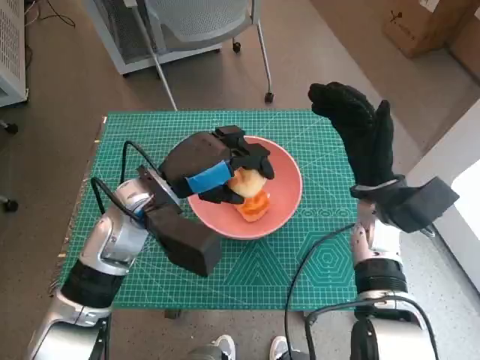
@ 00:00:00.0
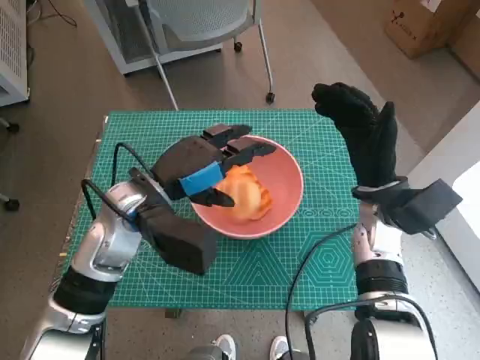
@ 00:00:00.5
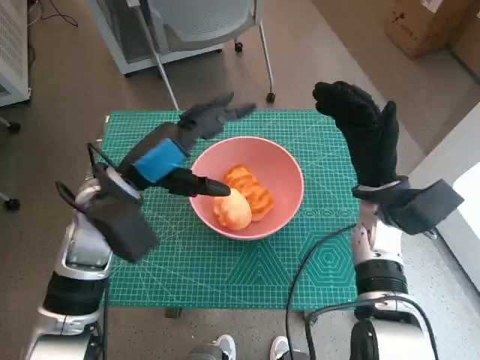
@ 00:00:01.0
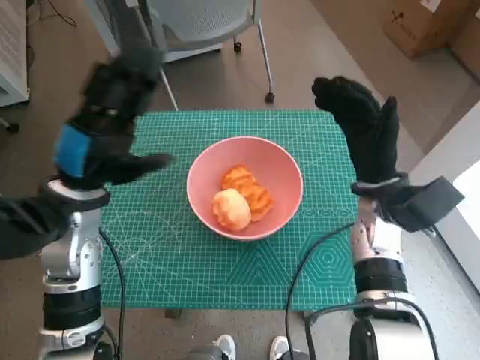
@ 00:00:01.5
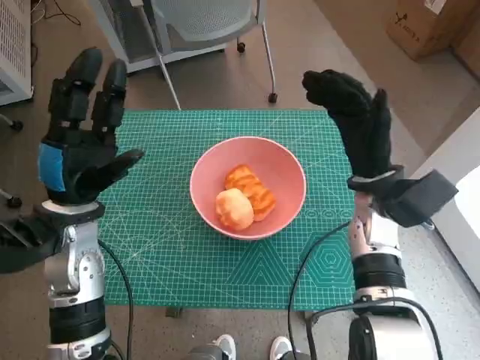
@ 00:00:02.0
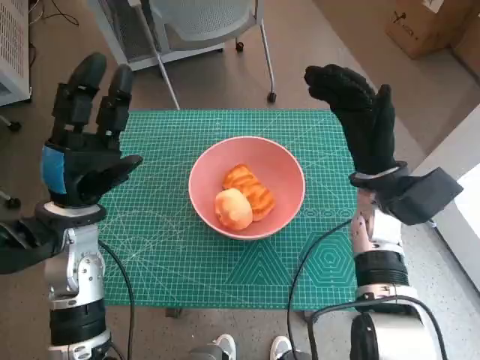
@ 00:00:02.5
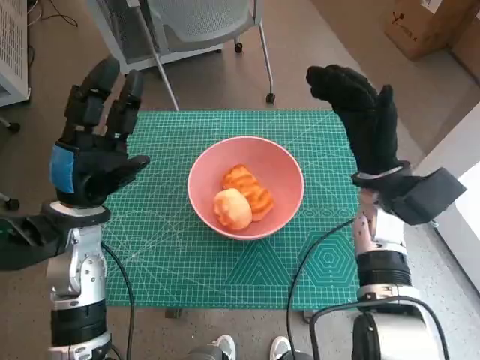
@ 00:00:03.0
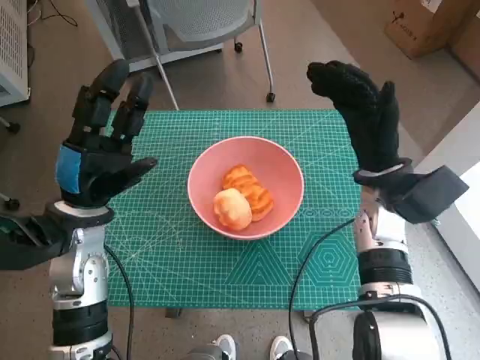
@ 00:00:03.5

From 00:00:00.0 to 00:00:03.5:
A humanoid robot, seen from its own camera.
From 00:00:00.0 to 00:00:02.0: The left hand goes about 10 cm to the left.
From 00:00:02.0 to 00:00:03.5: There are only small adjustments of the hands.

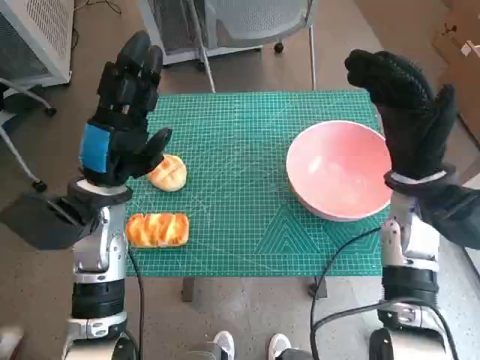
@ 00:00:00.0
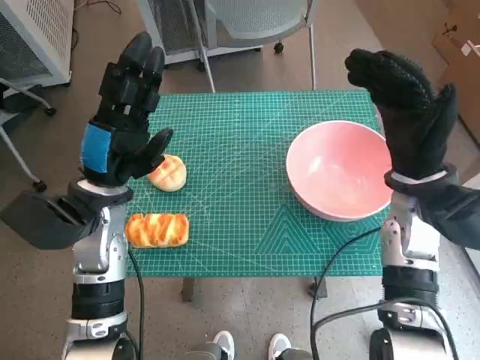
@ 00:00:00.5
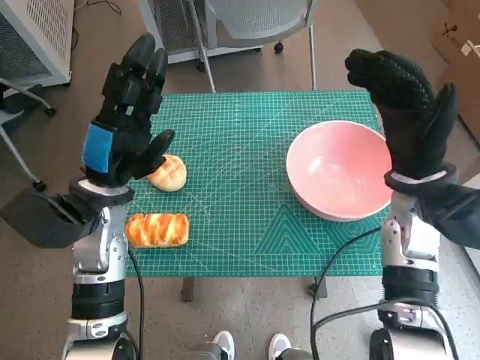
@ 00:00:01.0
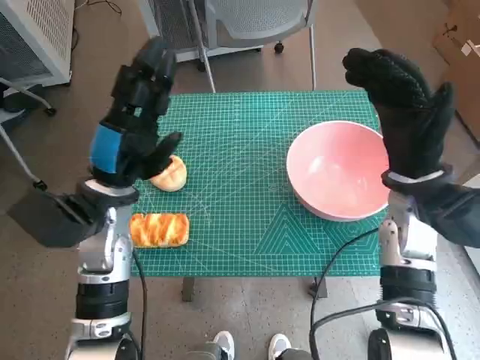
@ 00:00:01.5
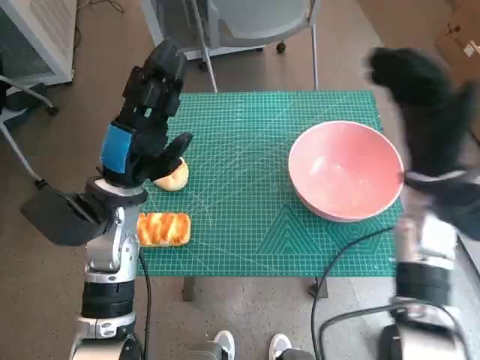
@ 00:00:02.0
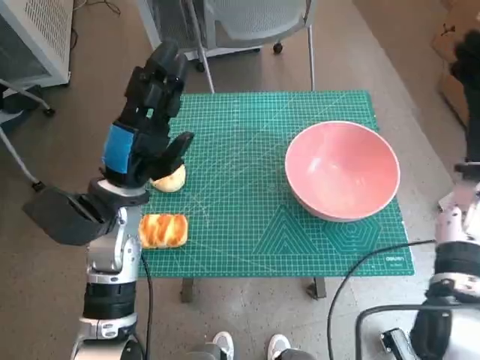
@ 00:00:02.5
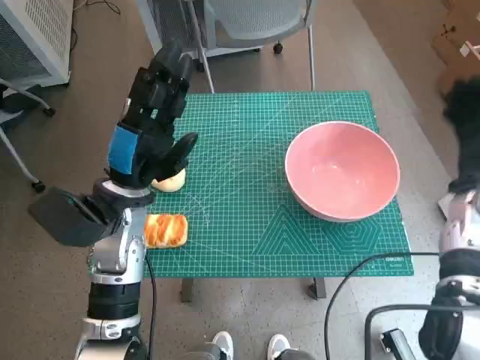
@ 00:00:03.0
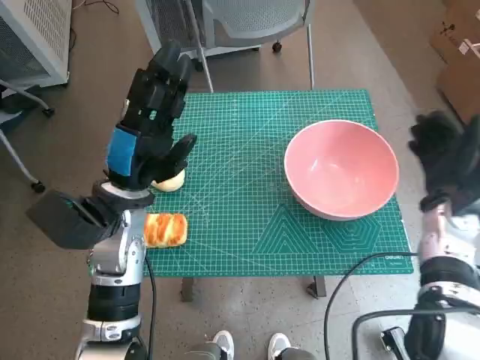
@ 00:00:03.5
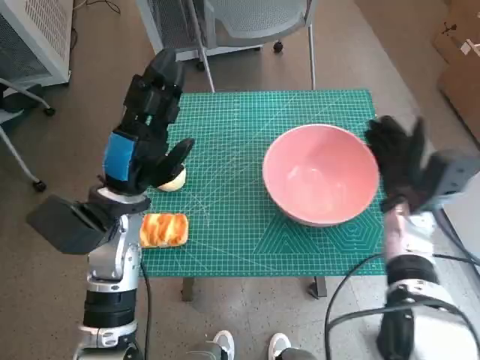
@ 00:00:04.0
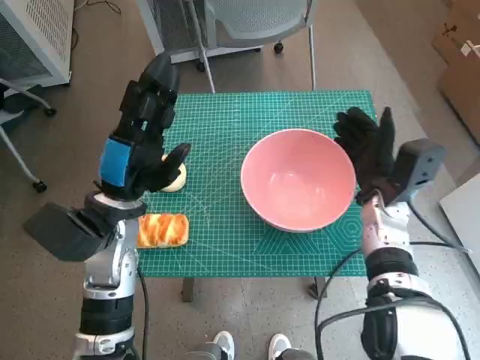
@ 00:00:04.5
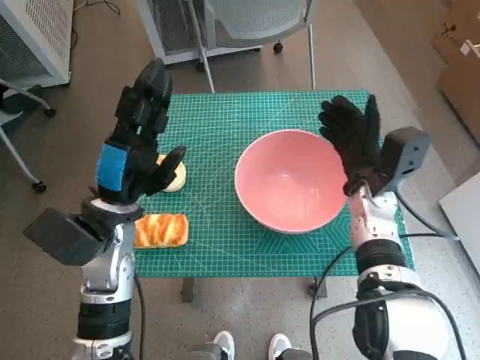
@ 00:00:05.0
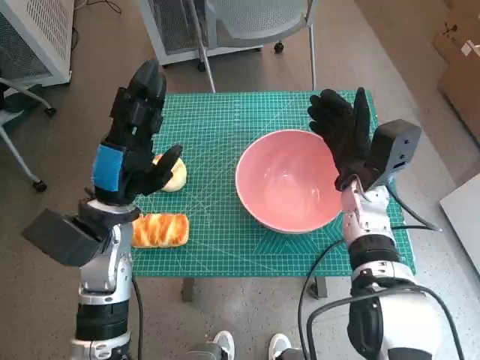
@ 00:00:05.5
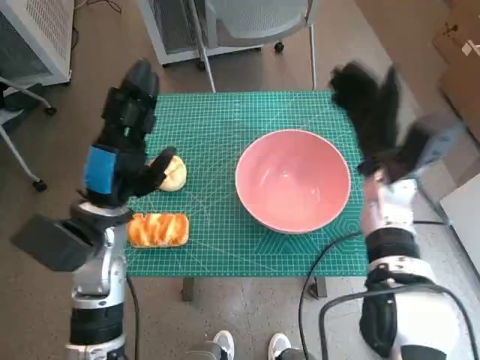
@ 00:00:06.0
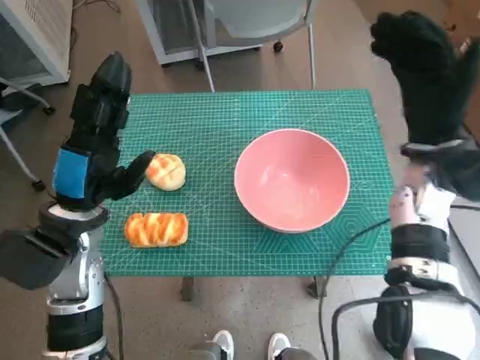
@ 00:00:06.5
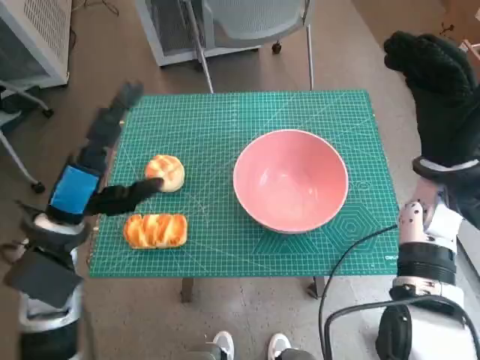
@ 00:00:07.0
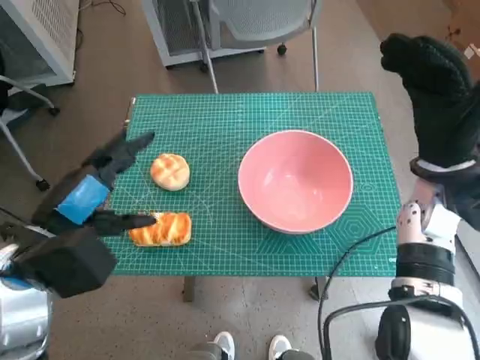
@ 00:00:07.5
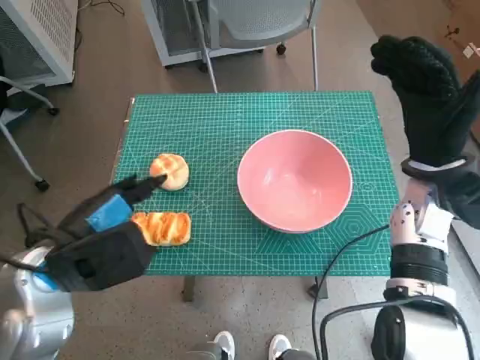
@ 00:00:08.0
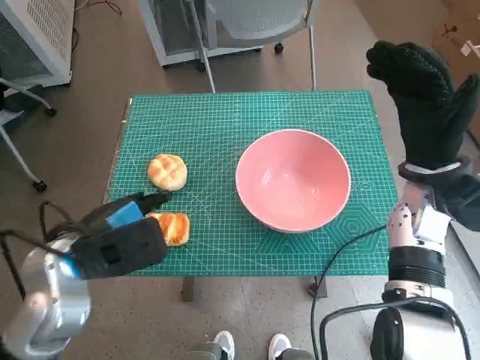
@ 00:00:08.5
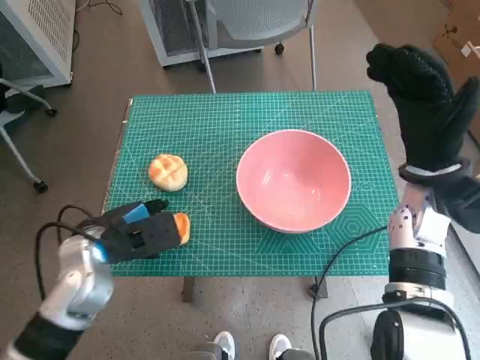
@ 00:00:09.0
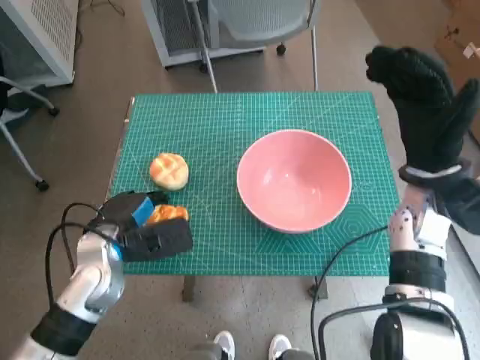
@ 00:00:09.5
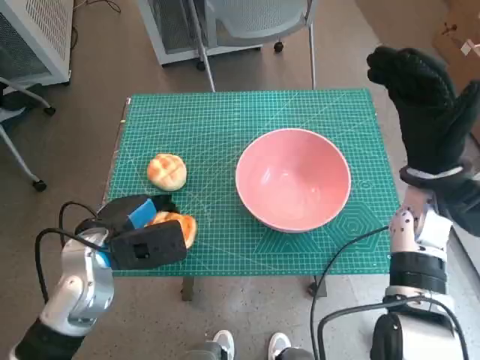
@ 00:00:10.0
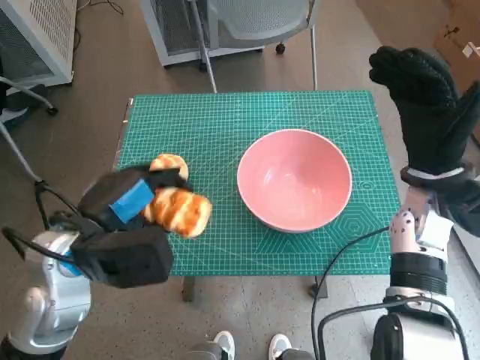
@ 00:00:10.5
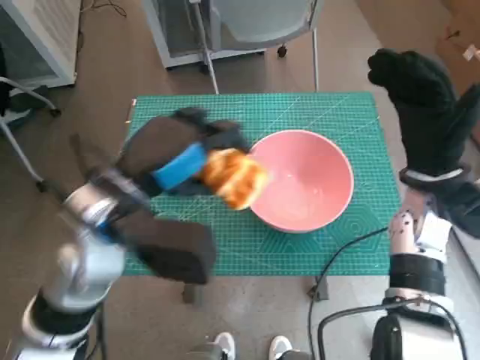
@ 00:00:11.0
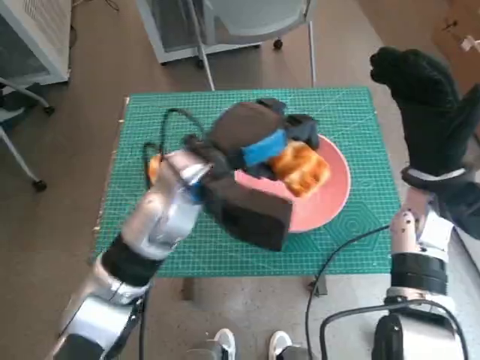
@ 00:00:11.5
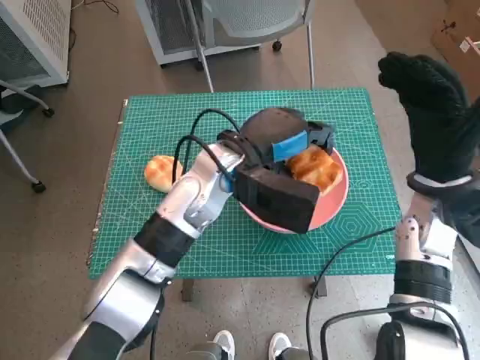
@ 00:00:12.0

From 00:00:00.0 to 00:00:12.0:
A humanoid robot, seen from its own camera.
Step, from 00:00:00.0 to 00:00:04.5: Move the pink bowl to the center of table with right hand.
Step, from 00:00:05.0 to 00:00:09.0: Grasp the long bread with left hand.
From 00:00:02.0 to 00:00:04.0: The right hand travels downward by about 10 cm.
From 00:00:04.0 to 00:00:06.0: The right hand heads upward and to the left, covering approximately 5 cm.
From 00:00:06.0 to 00:00:08.0: The left hand goes approximately 5 cm backward, while the right hand shifts by about 5 cm.
From 00:00:08.0 to 00:00:10.0: The left hand travels downward by approximately 5 cm.
From 00:00:10.0 to 00:00:12.0: The left hand travels to the right, forward and upward by some 20 cm.

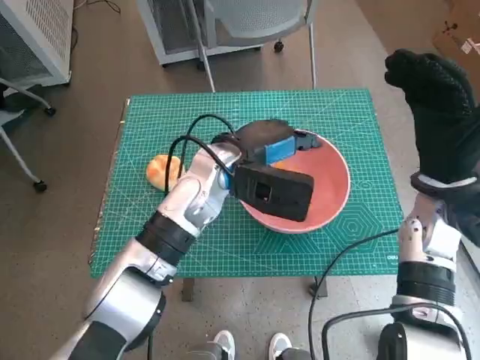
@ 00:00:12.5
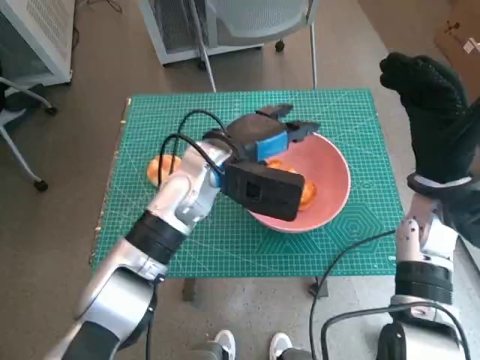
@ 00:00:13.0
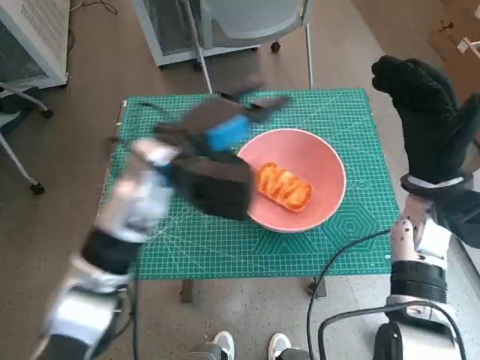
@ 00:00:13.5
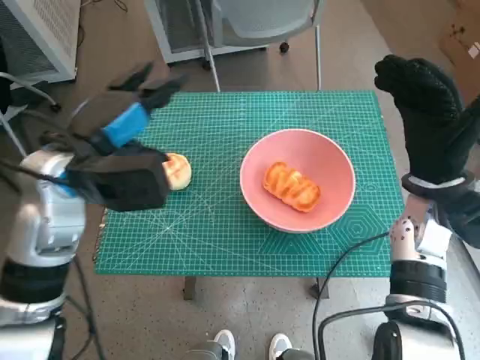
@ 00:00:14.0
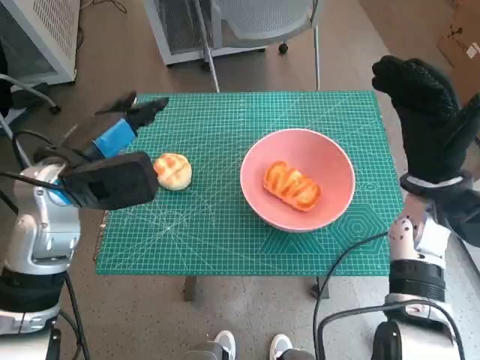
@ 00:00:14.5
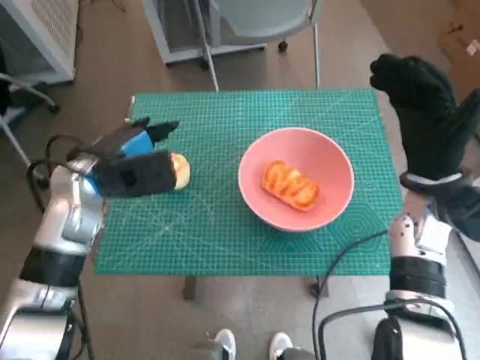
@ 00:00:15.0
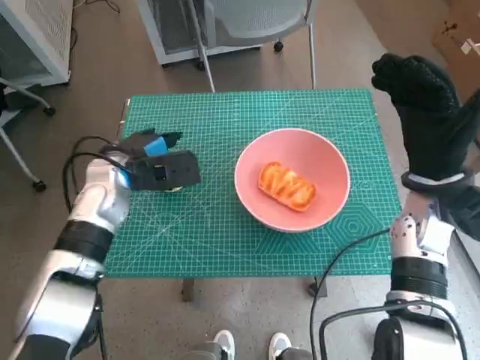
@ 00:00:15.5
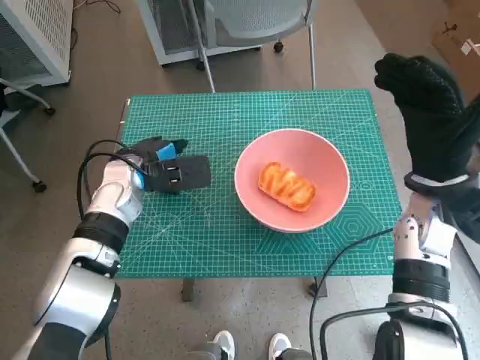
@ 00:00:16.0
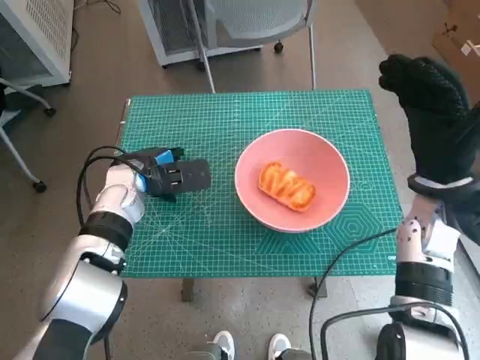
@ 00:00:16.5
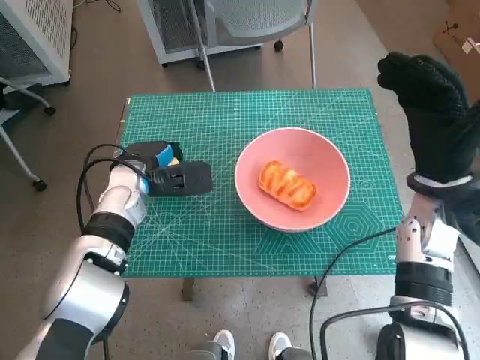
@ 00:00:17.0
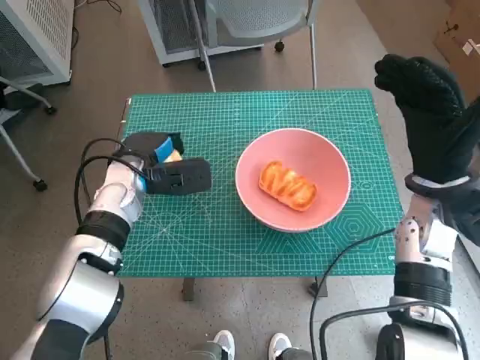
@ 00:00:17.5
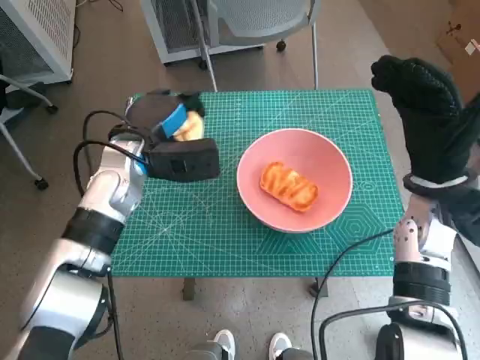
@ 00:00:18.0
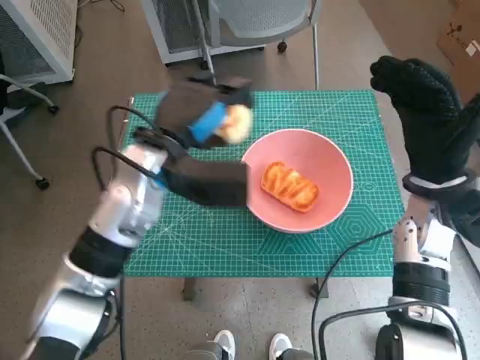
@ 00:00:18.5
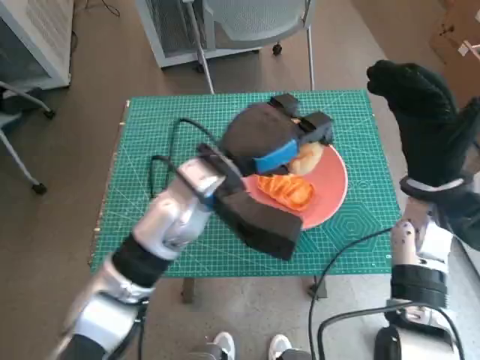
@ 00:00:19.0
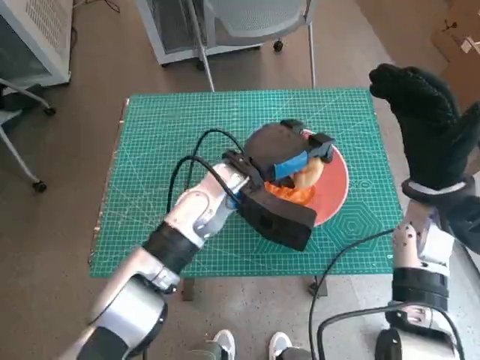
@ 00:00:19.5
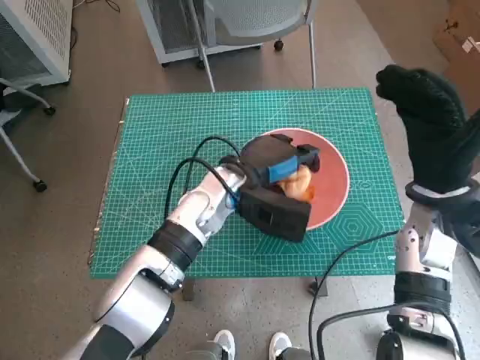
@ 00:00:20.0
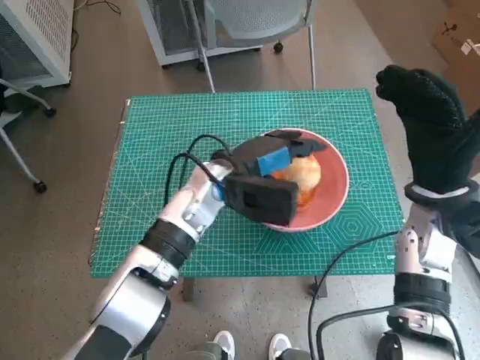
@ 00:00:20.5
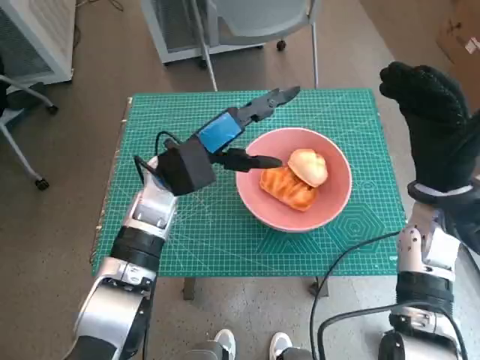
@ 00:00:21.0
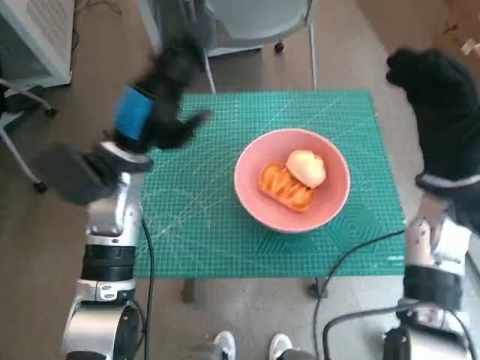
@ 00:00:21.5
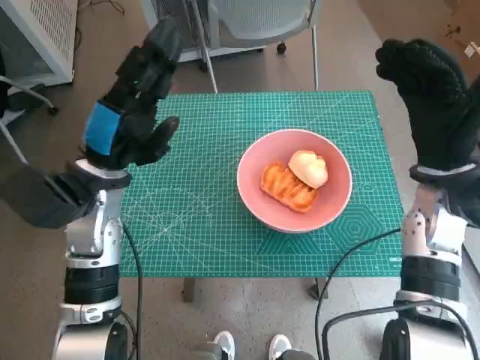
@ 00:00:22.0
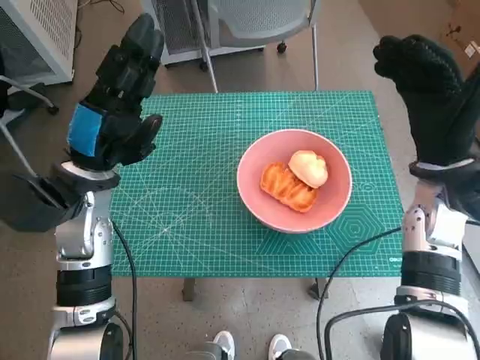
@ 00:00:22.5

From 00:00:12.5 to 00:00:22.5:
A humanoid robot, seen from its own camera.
Step, from 00:00:13.5 to 00:00:17.0: Grasp the round bread with left hand.
Step, from 00:00:17.5 to 00:00:20.5: Place the round bread in pink bowl with left hand.
From 00:00:12.5 to 00:00:14.5: The left hand shifts approximately 15 cm to the left.
From 00:00:14.5 to 00:00:16.5: The left hand goes roughly 10 cm downward and forward.
From 00:00:16.5 to 00:00:18.5: The left hand shifts approximately 10 cm upward and to the right.
From 00:00:18.5 to 00:00:20.5: The left hand moves to the right and downward, some 10 cm.
From 00:00:20.5 to 00:00:22.5: The left hand goes about 15 cm to the left.
